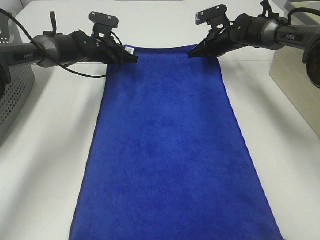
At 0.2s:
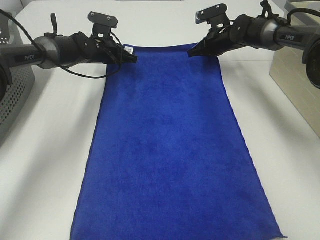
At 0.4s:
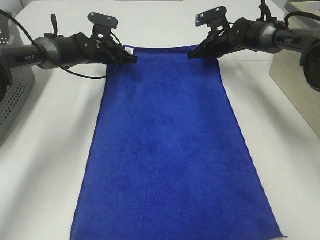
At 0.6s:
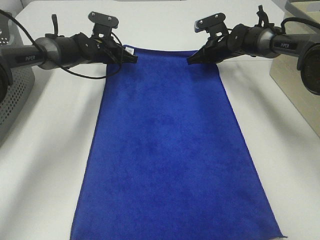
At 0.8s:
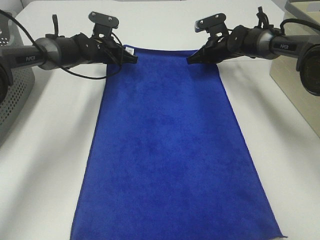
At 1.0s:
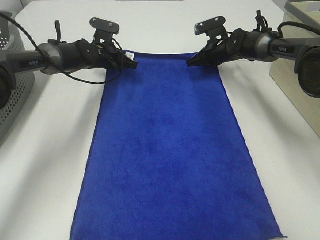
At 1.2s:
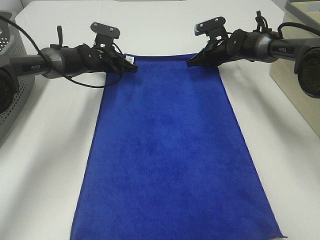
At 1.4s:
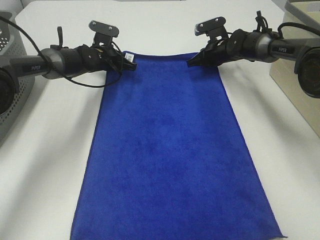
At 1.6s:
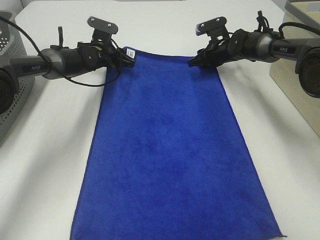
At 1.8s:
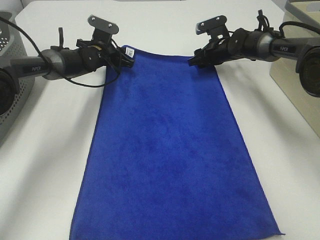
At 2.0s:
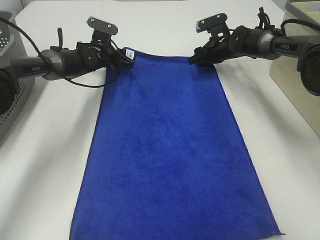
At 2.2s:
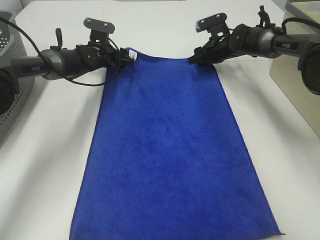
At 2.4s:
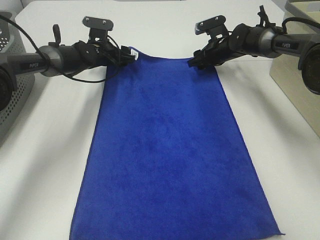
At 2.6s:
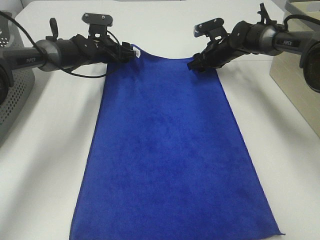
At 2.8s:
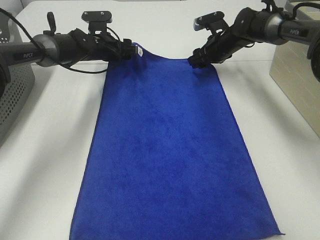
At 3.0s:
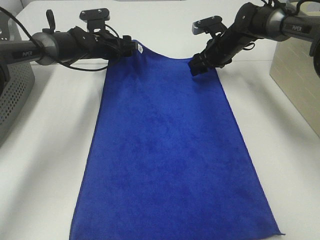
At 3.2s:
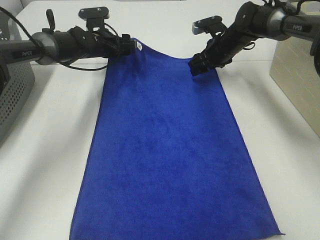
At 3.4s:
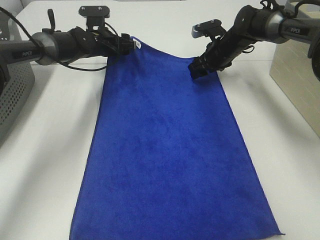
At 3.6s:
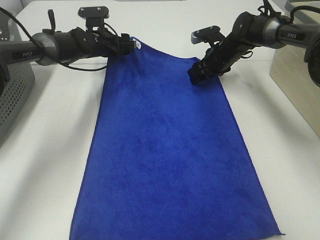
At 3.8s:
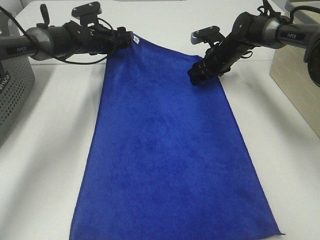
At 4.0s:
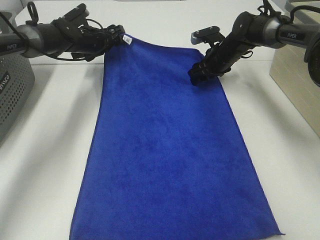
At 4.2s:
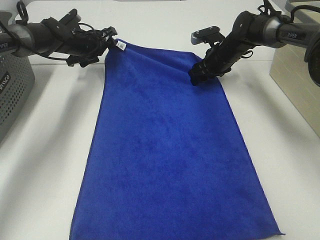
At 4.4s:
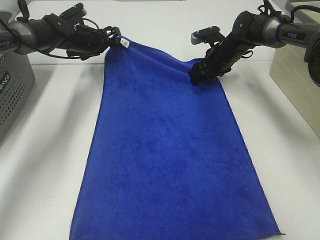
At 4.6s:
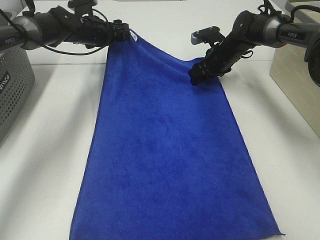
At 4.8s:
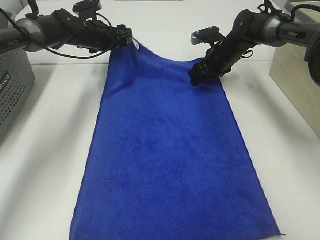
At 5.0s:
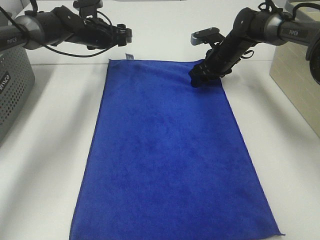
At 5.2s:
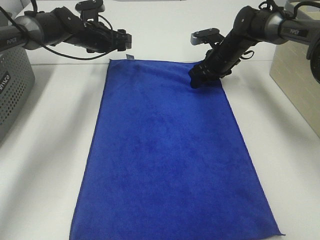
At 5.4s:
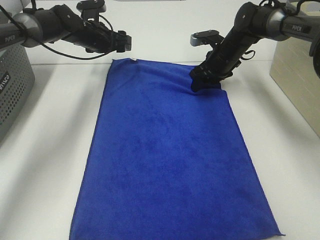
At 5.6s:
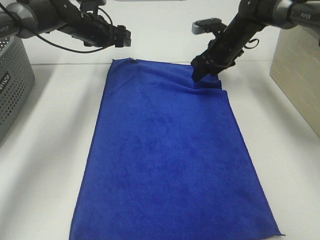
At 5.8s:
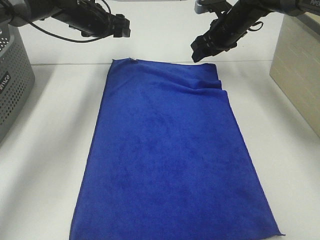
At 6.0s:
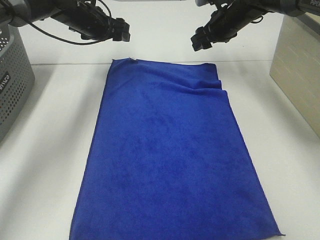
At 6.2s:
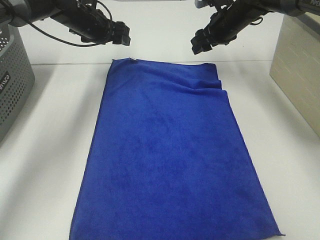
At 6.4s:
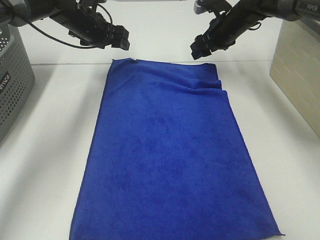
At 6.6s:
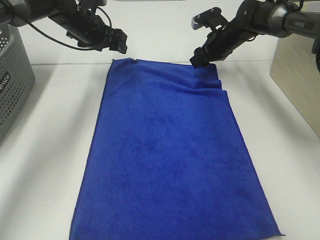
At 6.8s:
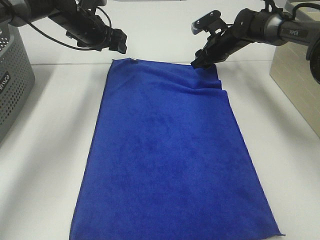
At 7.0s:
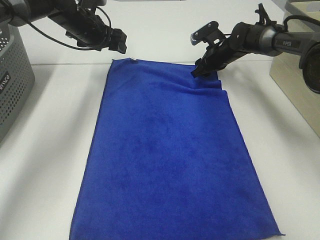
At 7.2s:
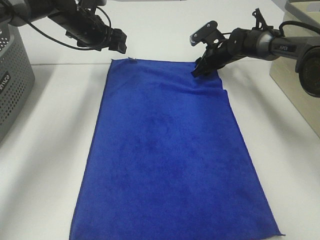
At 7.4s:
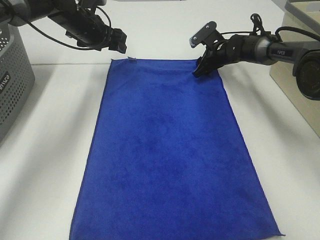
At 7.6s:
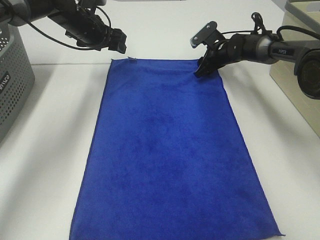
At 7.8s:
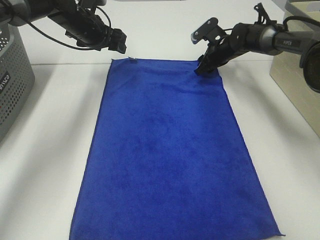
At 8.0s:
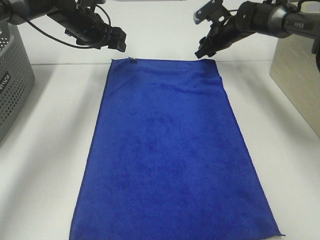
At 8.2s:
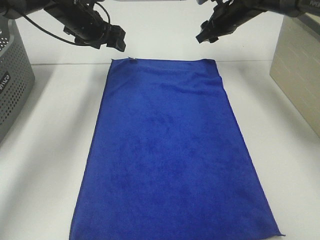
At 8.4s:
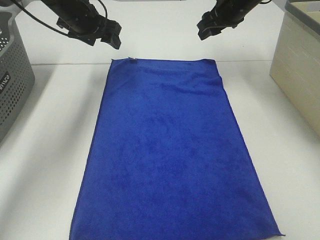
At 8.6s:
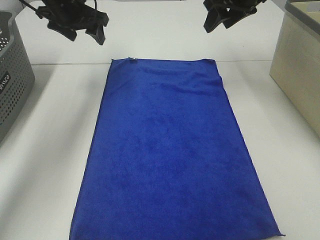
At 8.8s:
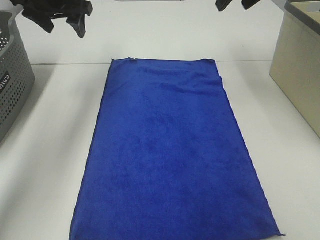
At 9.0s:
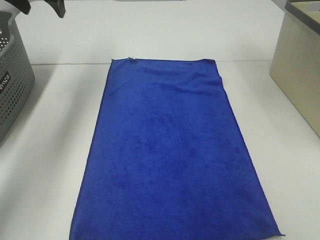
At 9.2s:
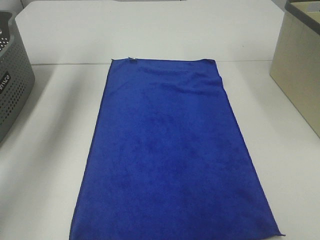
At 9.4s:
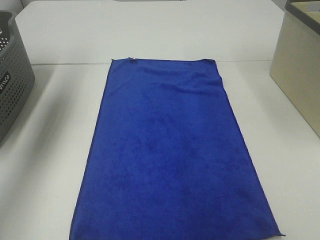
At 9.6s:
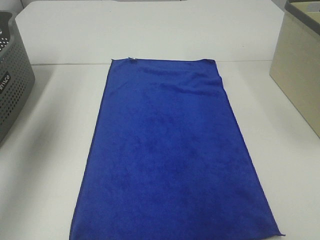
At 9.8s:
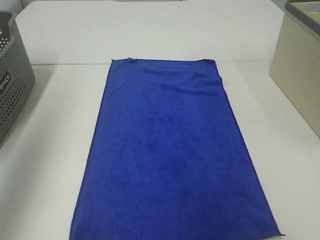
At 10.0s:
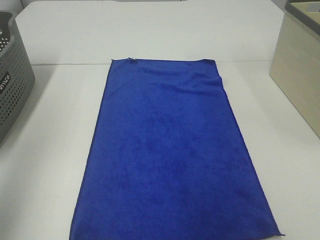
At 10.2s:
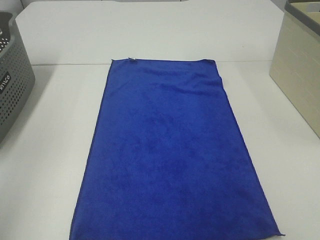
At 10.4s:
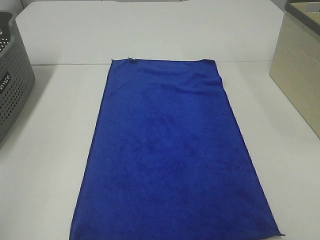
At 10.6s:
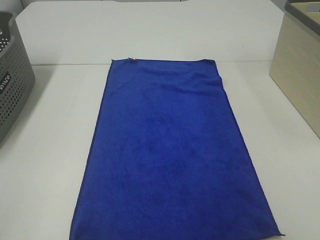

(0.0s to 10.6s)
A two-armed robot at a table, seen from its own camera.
Task of the whole recording: Remove the towel and place it.
0.0s - 1.6s: The right gripper opens. The left gripper opens.
4.6s - 6.0s: The right gripper heads upward, covering approximately 10 cm.
6.0s - 7.6s: The right gripper goes about 10 cm downward.
7.6s - 9.0s: The left gripper travels upward, to the left and backward by approximately 20 cm. The right gripper is displaced upward and backward by about 35 cm.
9.0s - 10.6s: The two grippers go roughly 50 cm backward.

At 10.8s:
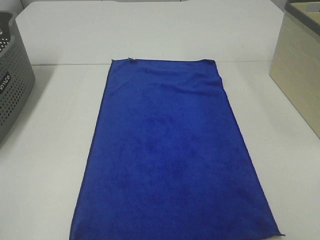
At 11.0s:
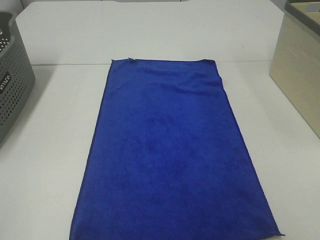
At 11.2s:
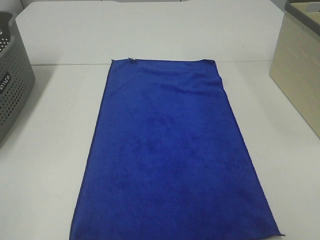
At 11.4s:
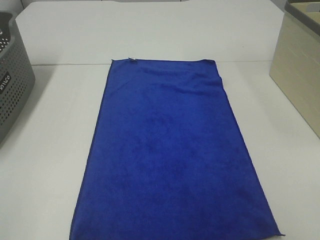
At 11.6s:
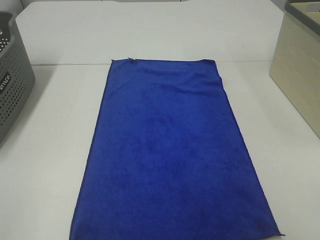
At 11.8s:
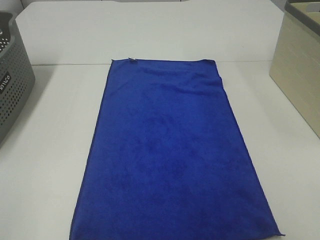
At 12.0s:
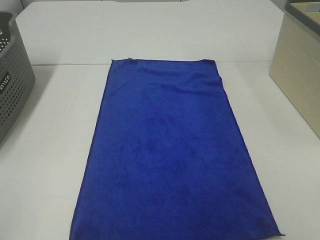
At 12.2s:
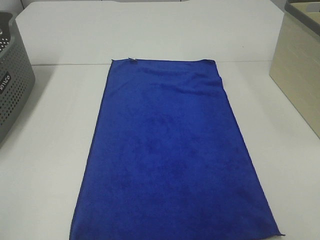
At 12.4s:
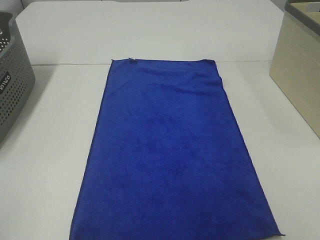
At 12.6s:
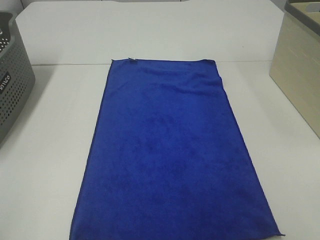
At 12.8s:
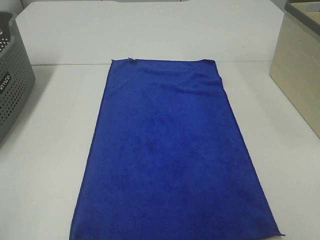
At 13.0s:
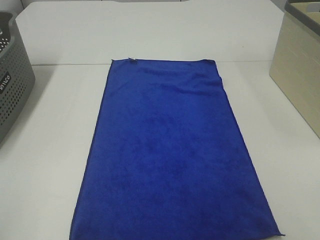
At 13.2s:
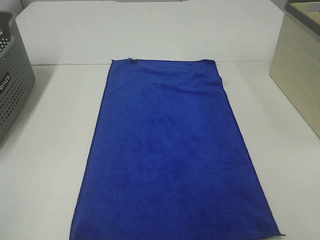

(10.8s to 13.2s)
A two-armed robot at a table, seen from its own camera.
Task of the whole recording: Remove the towel and place it.
12.0s - 13.2s: Neither gripper changes place.

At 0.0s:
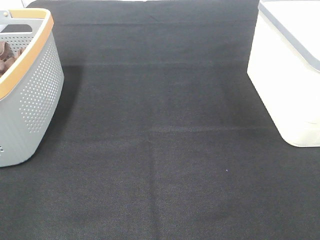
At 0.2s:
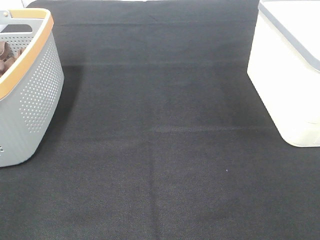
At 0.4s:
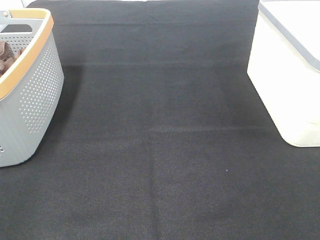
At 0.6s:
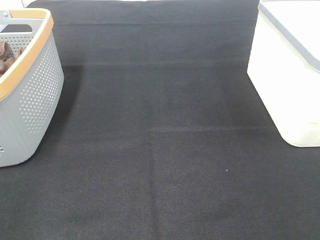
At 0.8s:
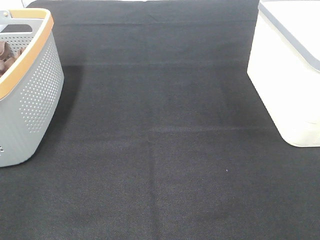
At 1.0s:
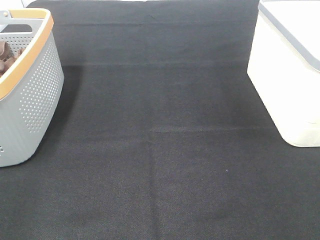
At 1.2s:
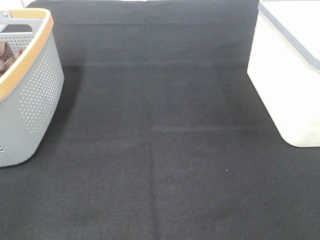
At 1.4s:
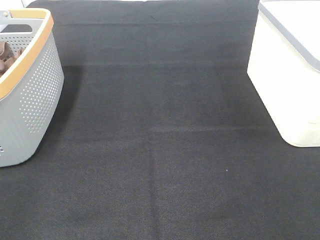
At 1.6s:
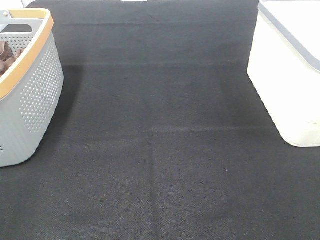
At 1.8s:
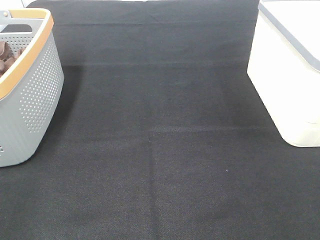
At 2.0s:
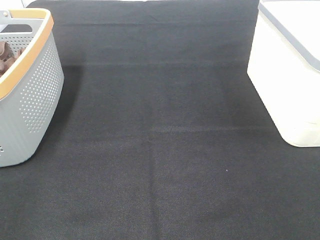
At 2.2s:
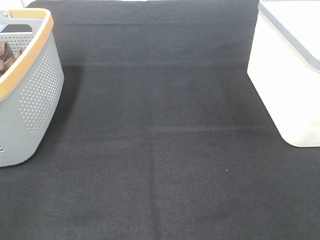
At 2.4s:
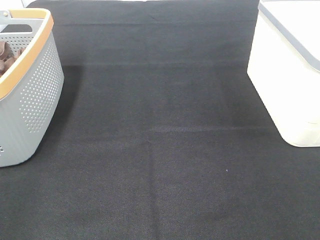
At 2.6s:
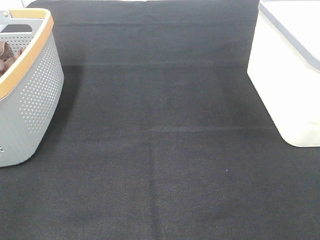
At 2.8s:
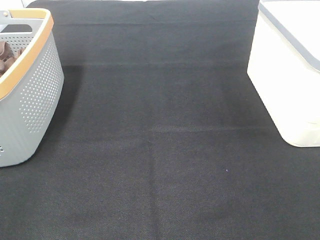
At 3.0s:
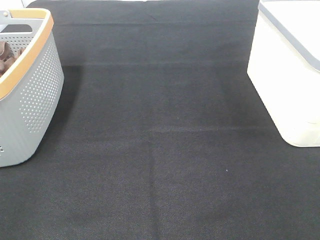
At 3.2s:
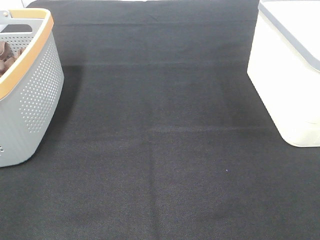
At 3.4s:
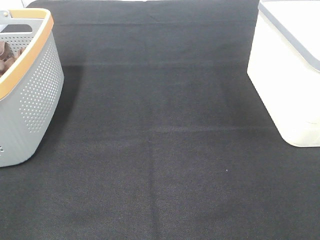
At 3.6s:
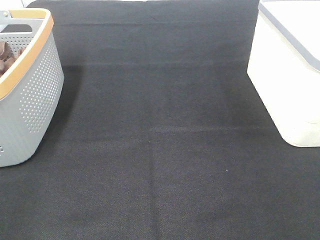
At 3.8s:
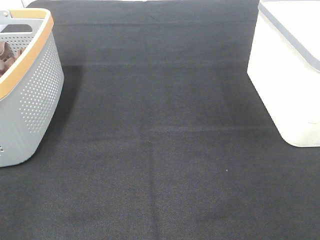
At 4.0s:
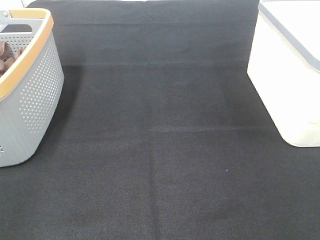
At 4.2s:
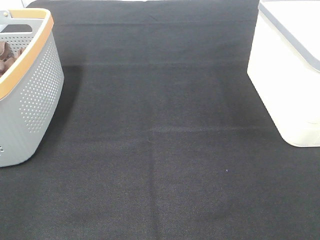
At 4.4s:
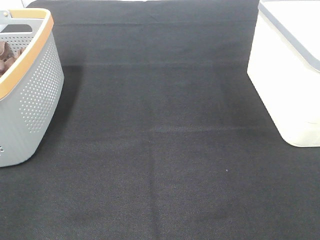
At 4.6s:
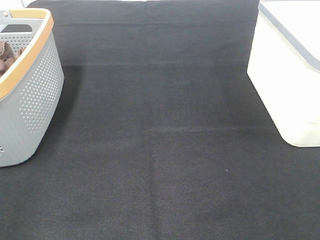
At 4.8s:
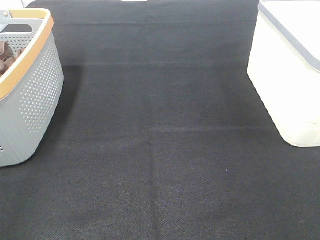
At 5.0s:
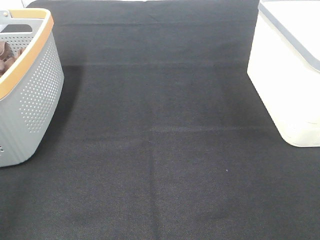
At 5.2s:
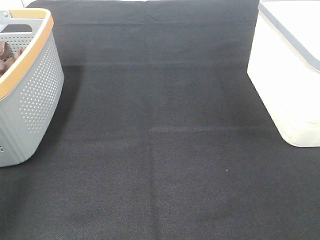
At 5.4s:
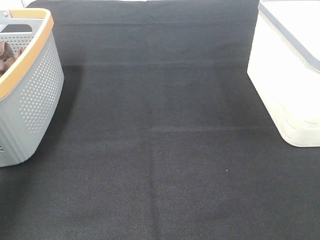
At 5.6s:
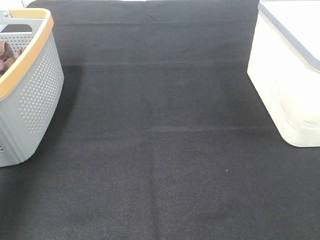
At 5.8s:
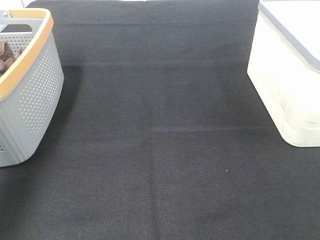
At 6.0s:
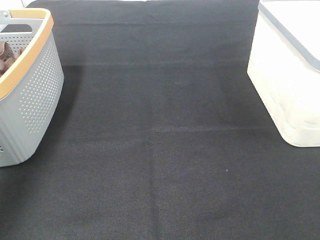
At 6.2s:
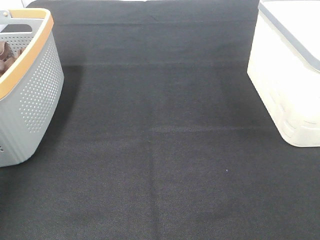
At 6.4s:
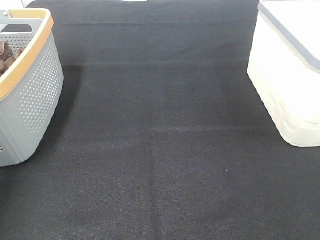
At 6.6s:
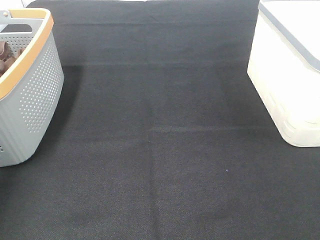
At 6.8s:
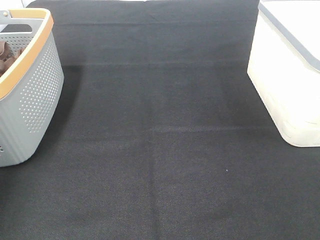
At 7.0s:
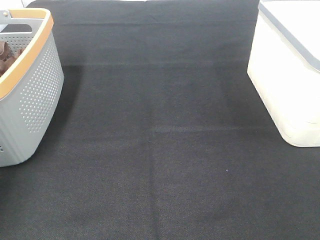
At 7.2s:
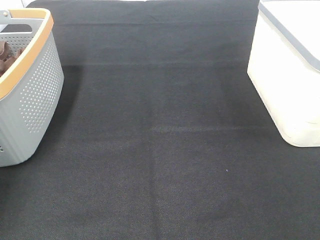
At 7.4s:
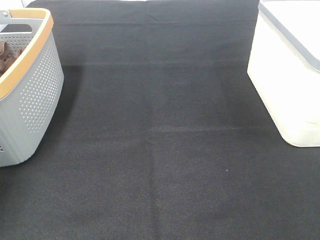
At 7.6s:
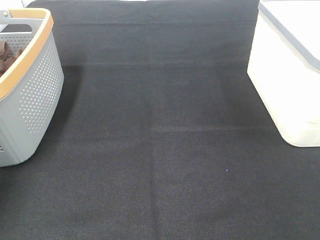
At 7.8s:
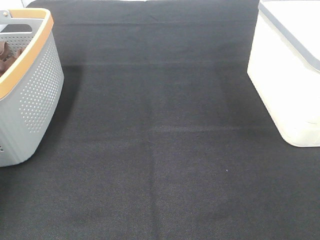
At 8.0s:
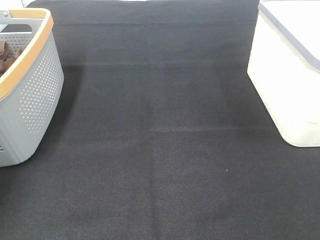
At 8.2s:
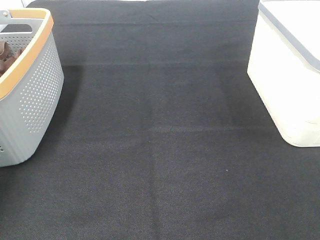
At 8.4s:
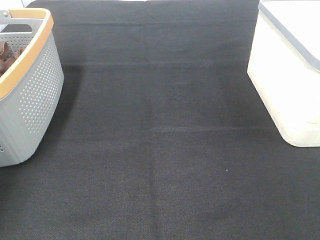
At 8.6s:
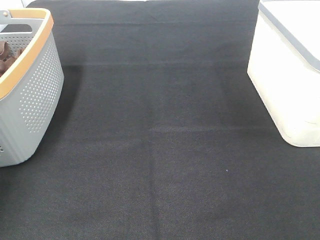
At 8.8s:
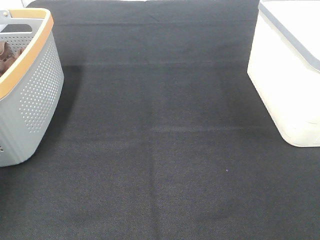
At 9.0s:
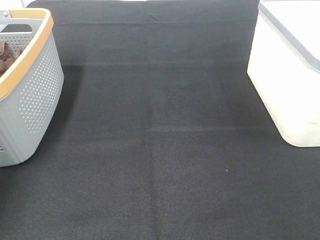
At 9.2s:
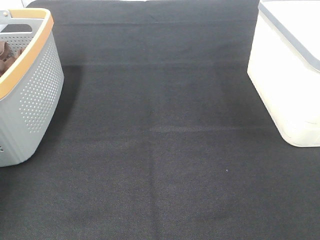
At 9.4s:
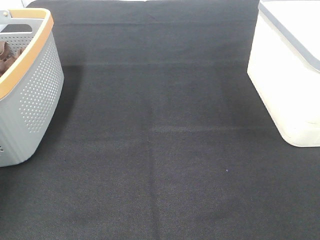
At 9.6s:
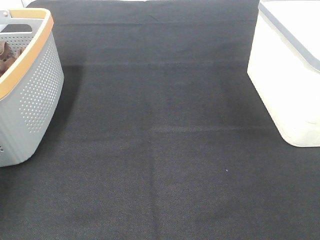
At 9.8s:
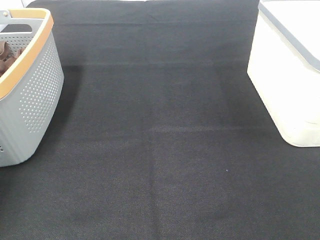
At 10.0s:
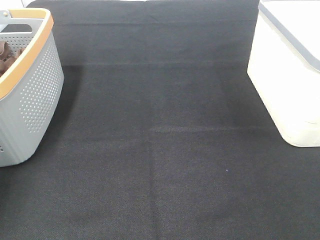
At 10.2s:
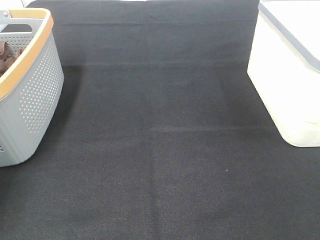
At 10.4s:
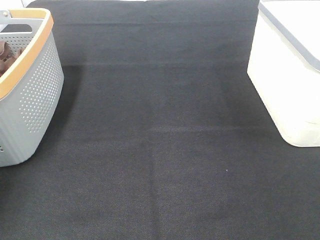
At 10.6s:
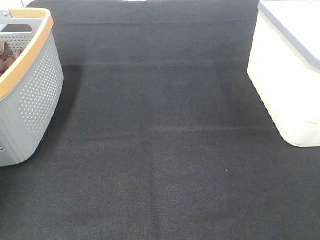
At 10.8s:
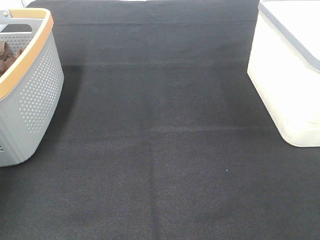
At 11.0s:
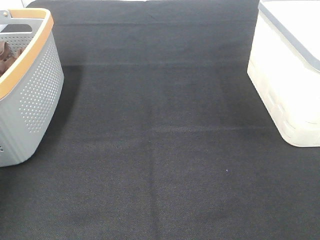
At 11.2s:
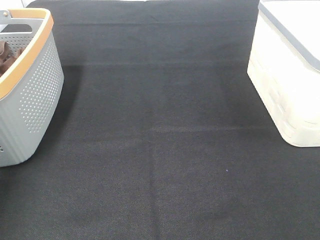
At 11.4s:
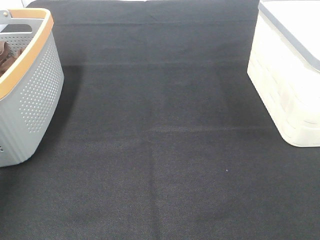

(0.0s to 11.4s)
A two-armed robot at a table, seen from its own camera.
Task of the whole recording: Remove the towel and place it.
0.0s - 4.2s: Neither gripper changes place.
4.2s - 5.6s: The left gripper shifts about 25 cm forward.
5.6s - 7.2s: The left gripper shifts roughly 25 cm forward and downward.
